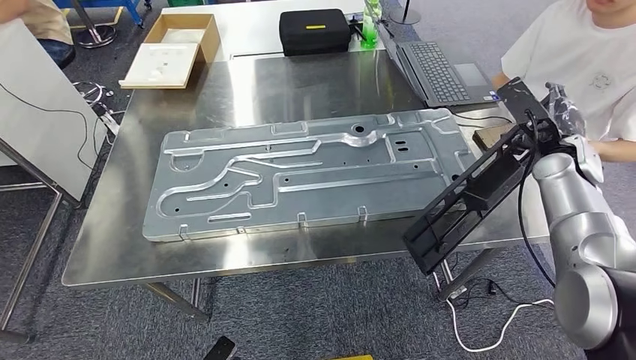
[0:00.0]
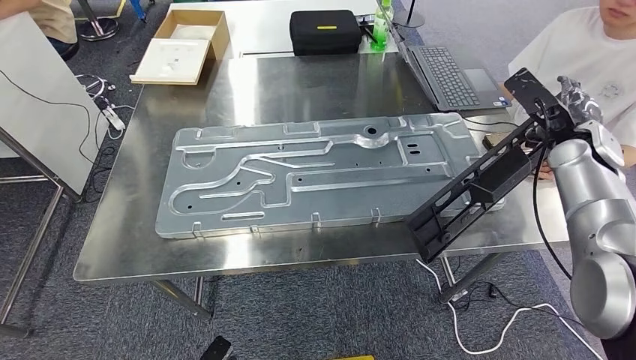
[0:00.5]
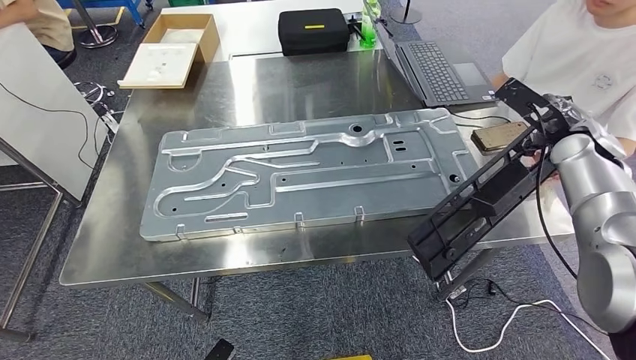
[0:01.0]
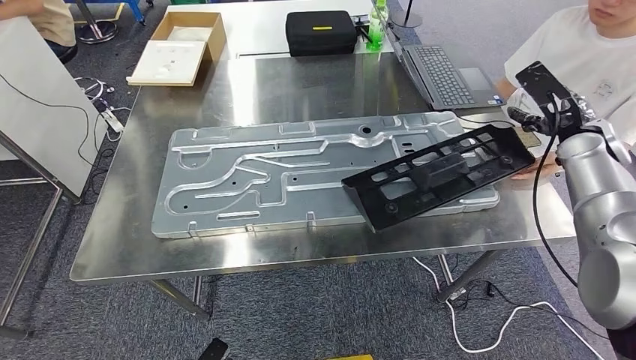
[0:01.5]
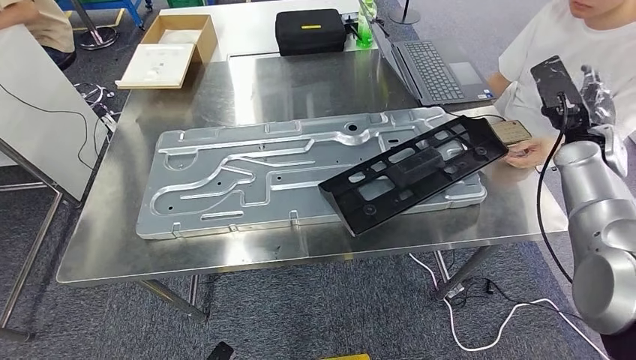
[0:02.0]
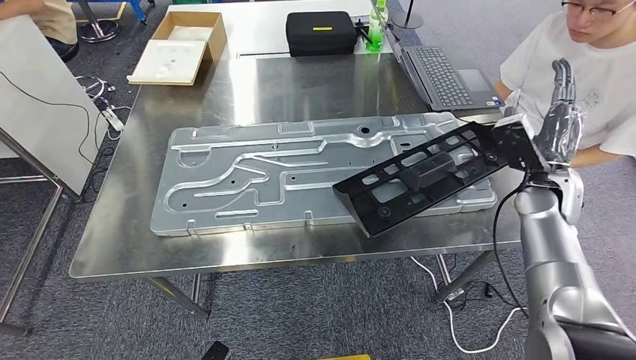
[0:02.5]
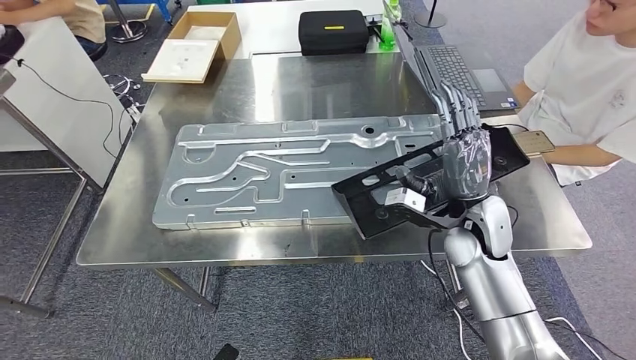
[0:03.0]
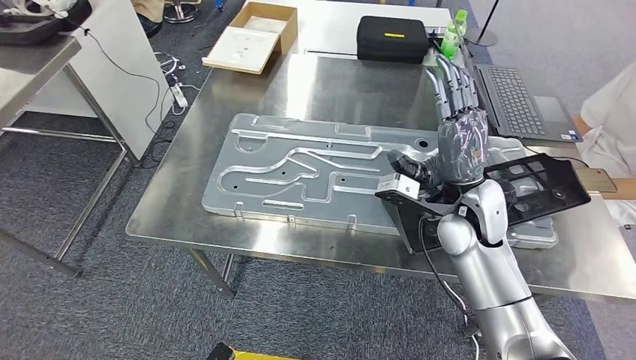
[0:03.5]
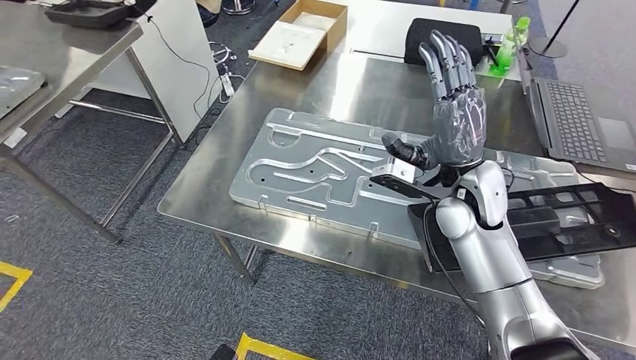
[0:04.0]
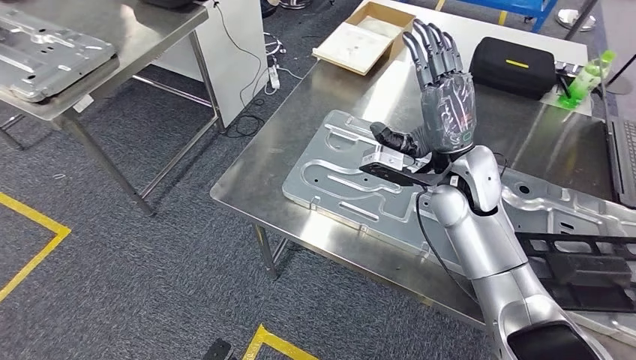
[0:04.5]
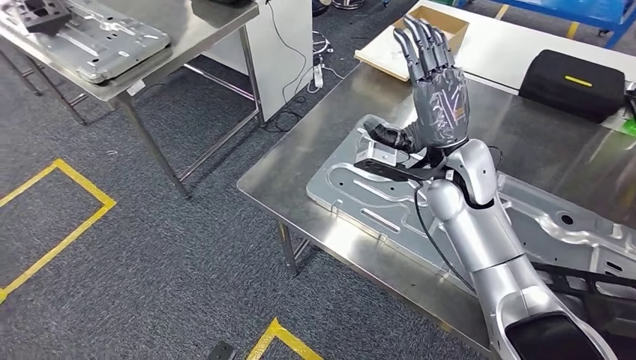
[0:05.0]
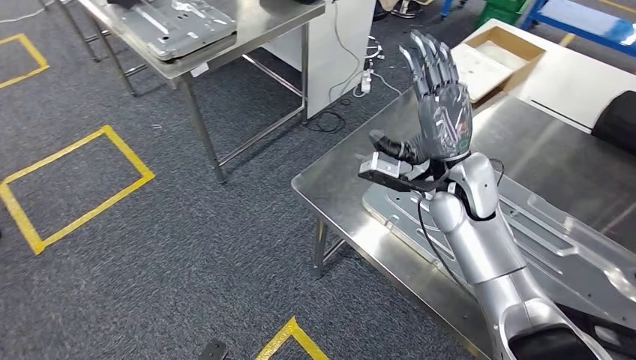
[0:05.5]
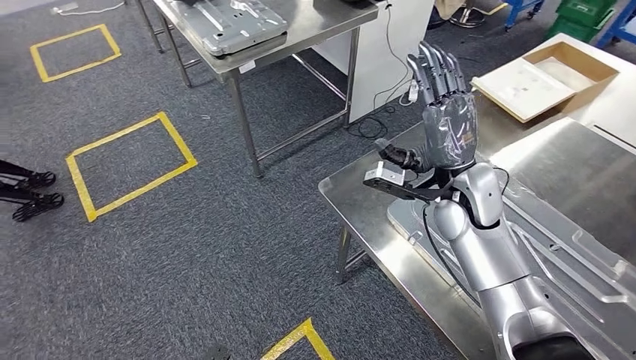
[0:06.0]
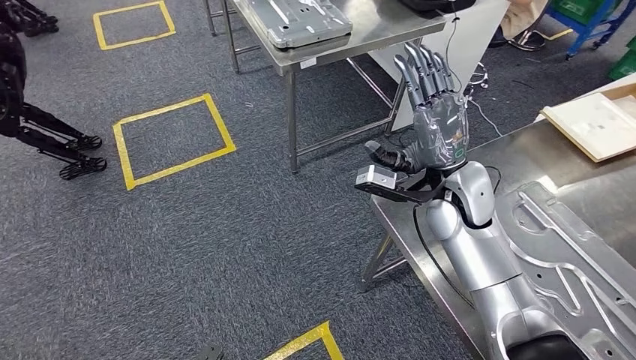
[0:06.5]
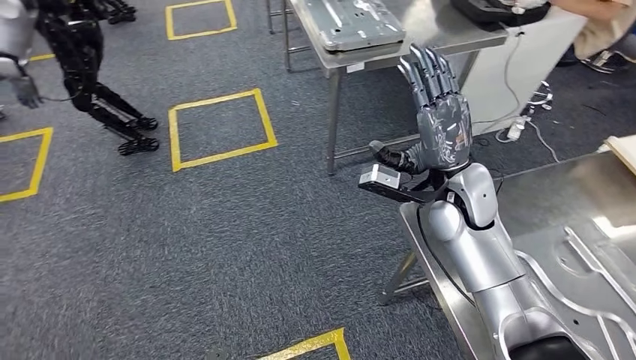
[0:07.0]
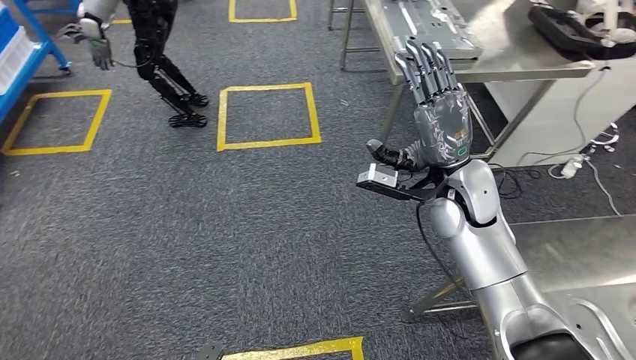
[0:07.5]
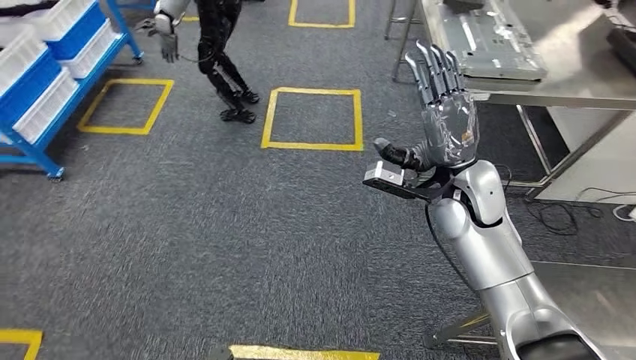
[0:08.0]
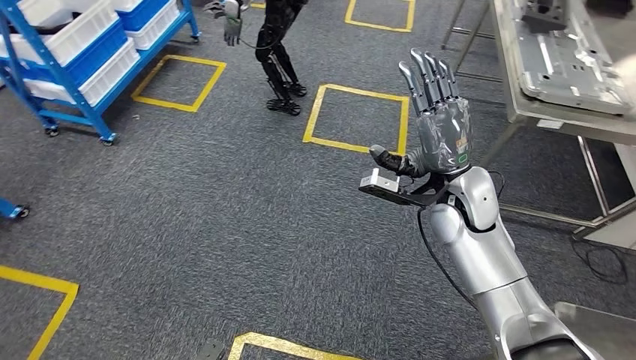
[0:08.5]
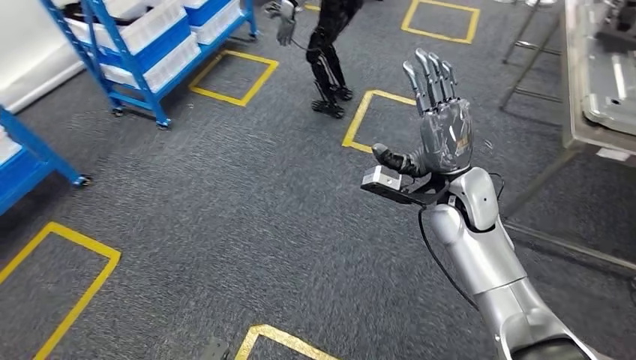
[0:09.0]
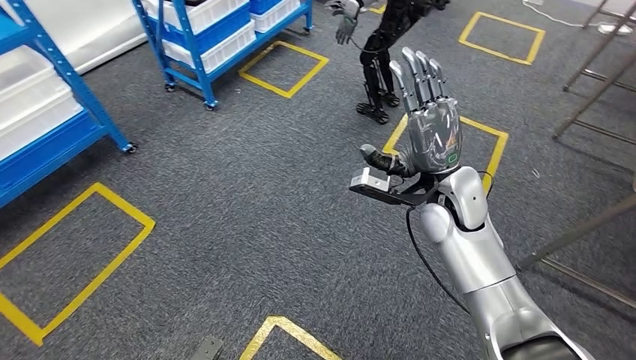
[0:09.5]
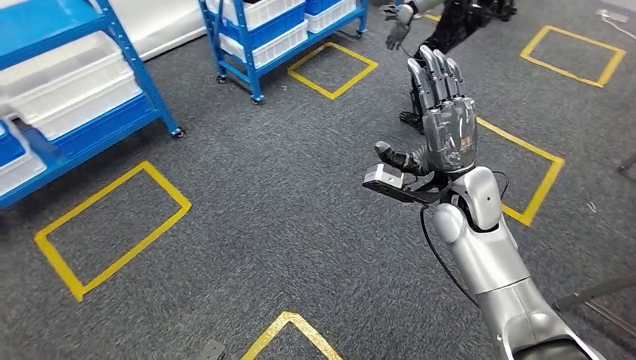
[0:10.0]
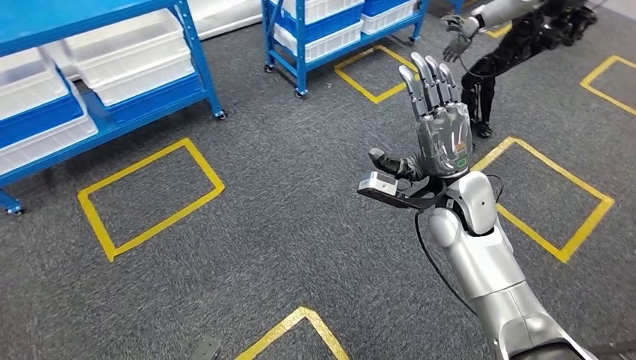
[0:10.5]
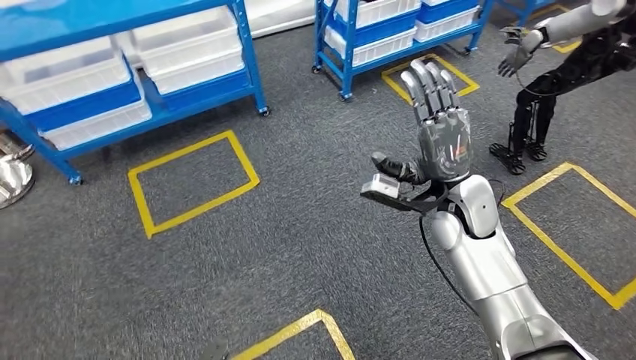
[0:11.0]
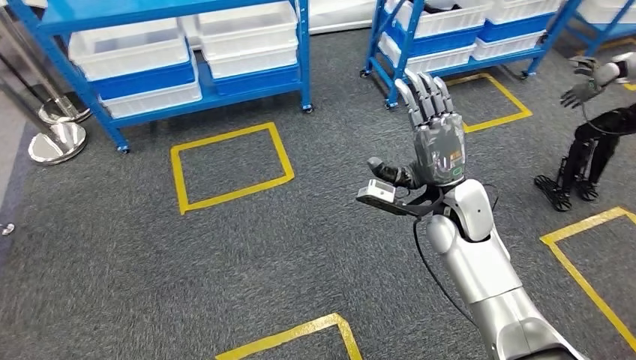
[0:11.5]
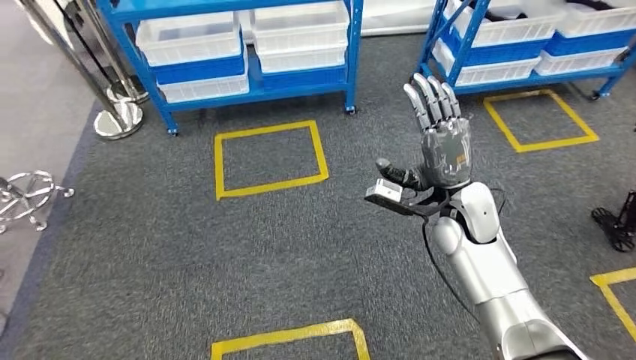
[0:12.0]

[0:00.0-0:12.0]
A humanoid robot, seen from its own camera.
Step, 0:00.0 to 0:02.0: Insert the large material into the corresponding slot on the workbench.

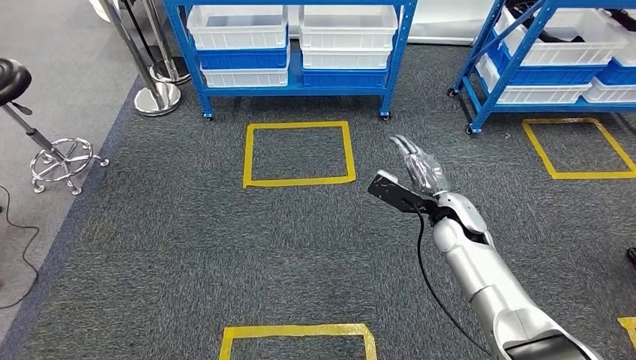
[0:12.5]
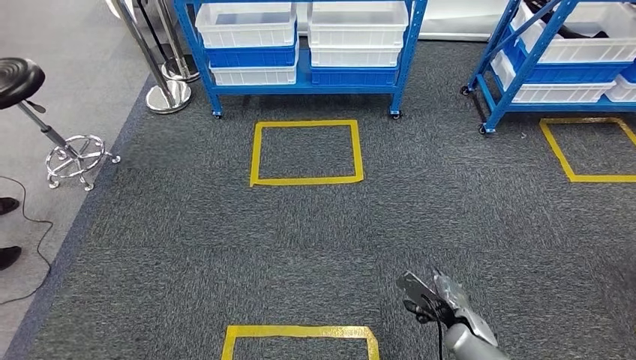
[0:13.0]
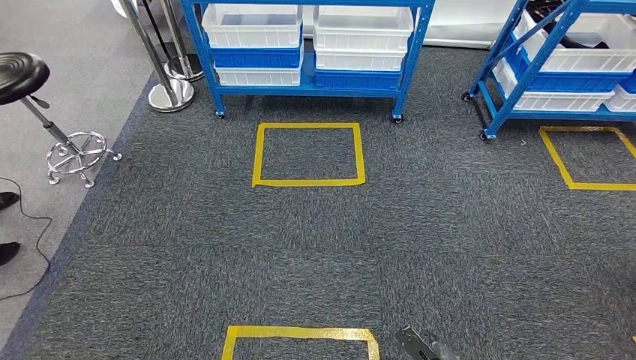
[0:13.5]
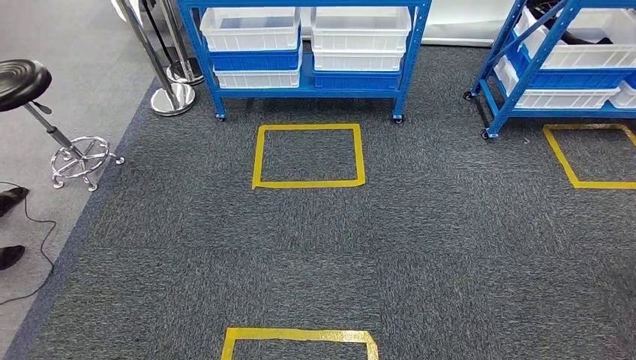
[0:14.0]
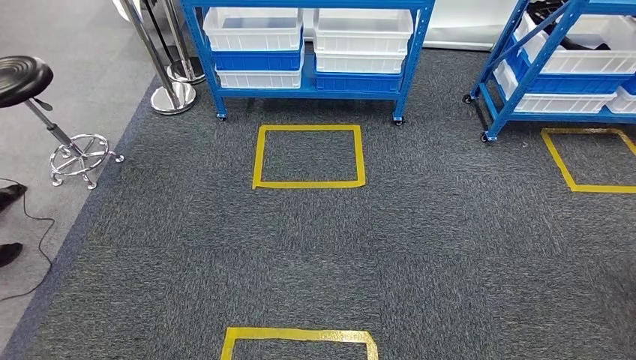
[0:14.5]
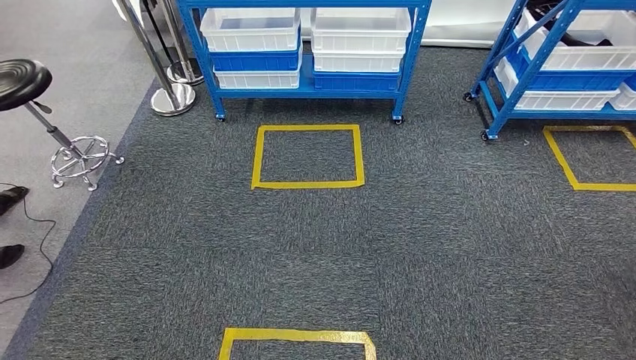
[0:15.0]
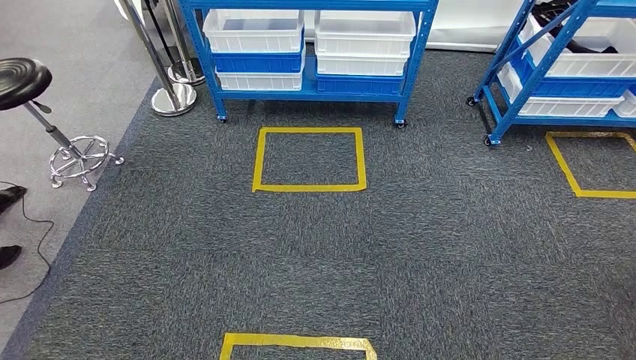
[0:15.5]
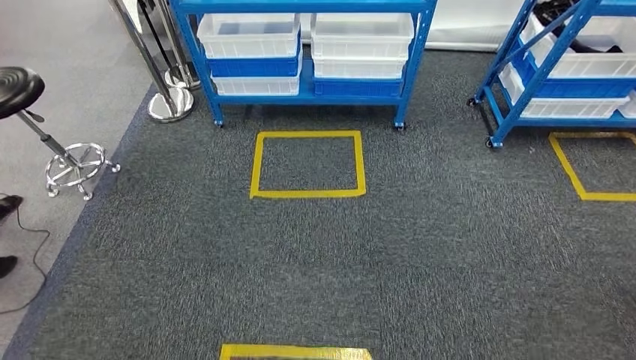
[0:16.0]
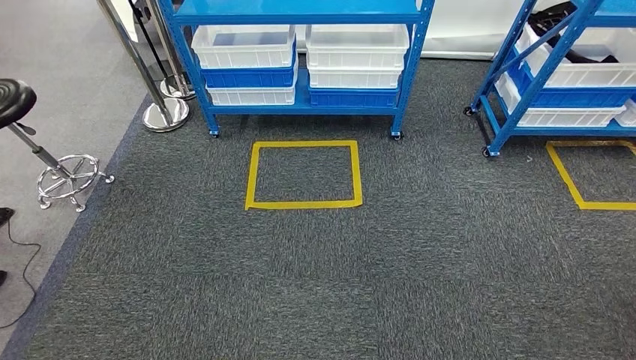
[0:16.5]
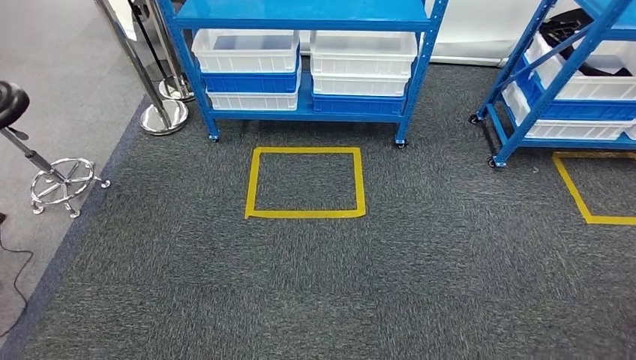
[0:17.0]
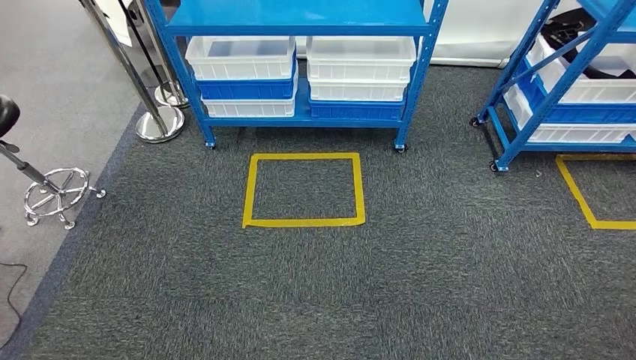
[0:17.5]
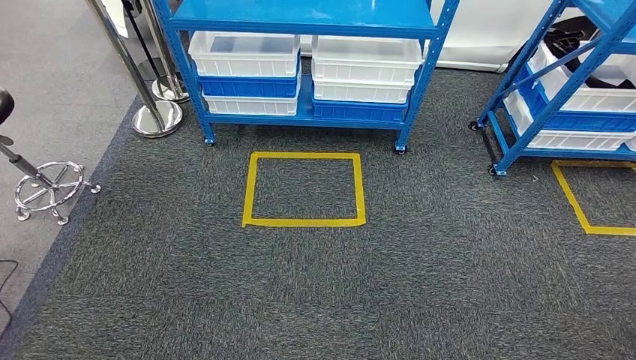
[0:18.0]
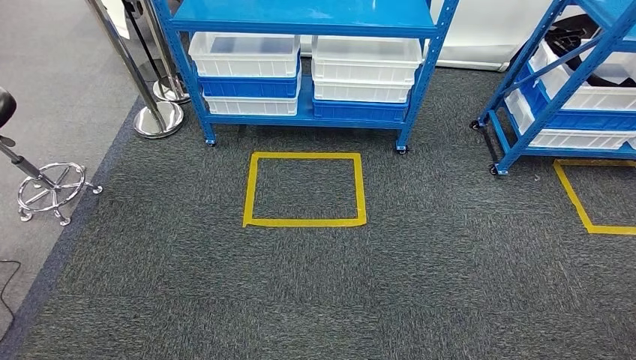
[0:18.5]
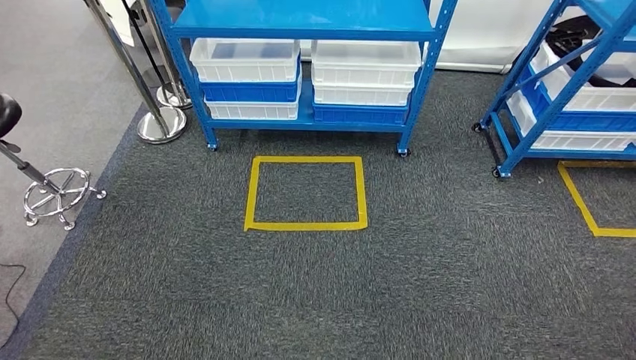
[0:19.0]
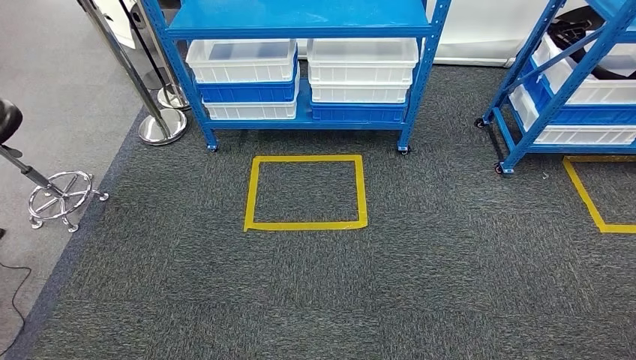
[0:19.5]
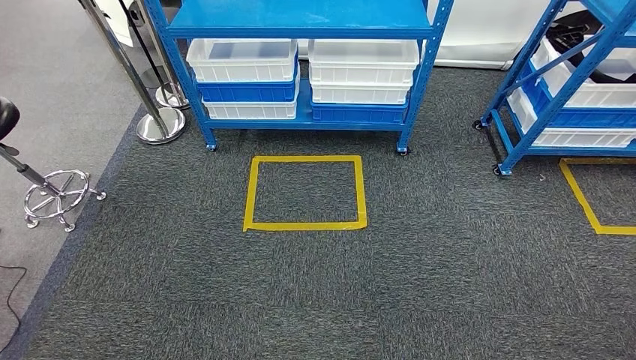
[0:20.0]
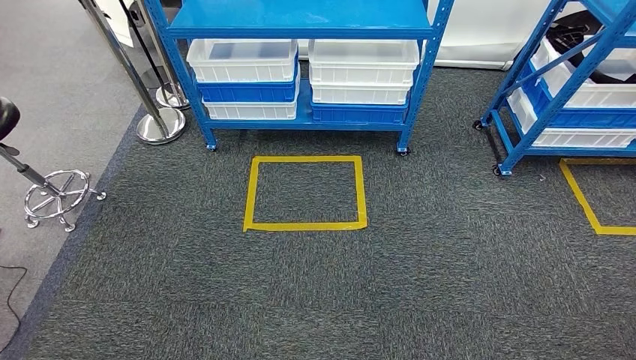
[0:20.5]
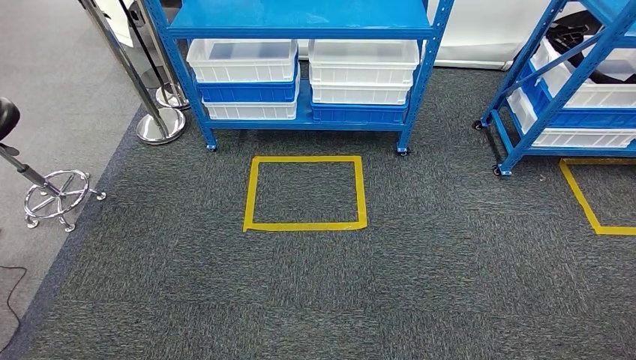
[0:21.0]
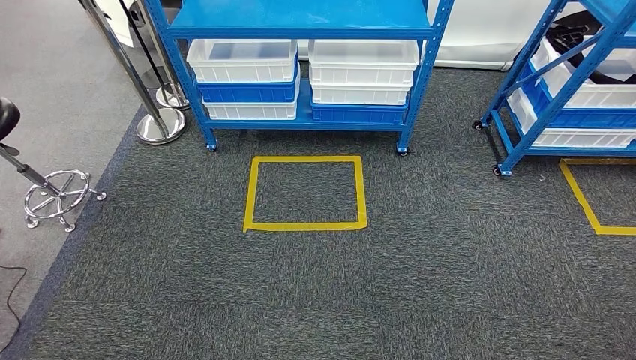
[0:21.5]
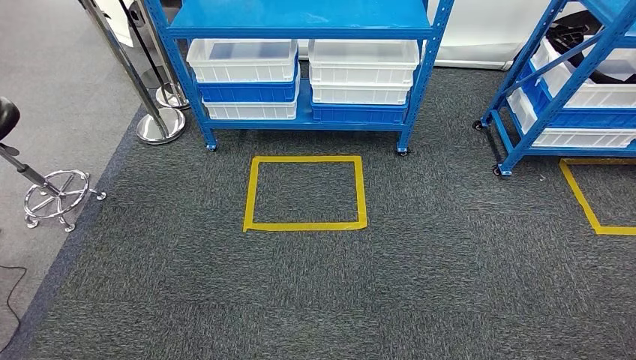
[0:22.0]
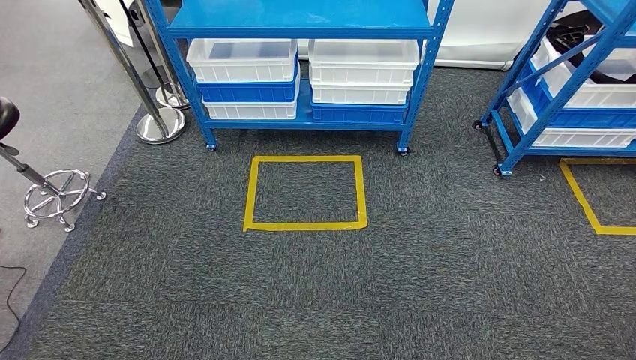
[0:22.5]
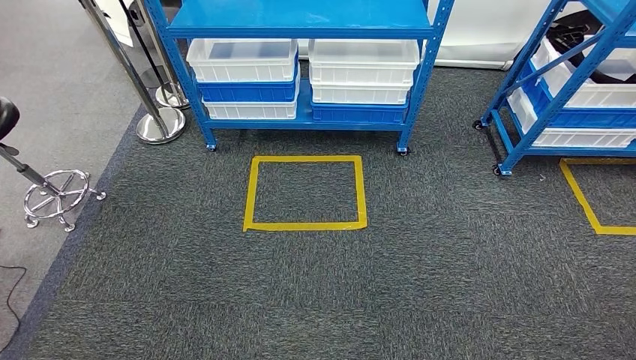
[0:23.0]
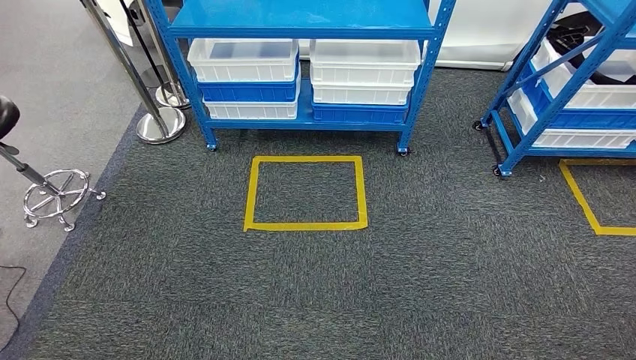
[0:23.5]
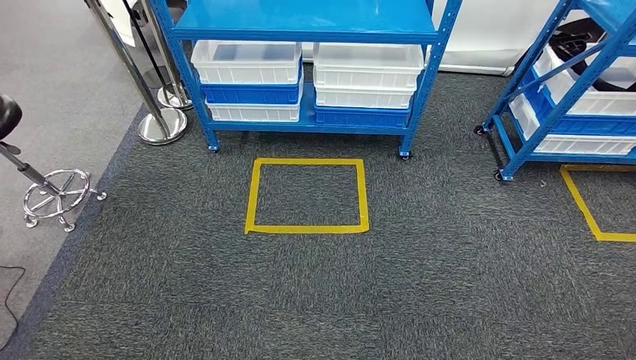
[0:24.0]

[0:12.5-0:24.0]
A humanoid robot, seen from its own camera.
0:18.5 to 0:20.0: The right hand changes place by roughly 5 cm.
0:22.0 to 0:24.0: There are only small adjustments of the hands.
